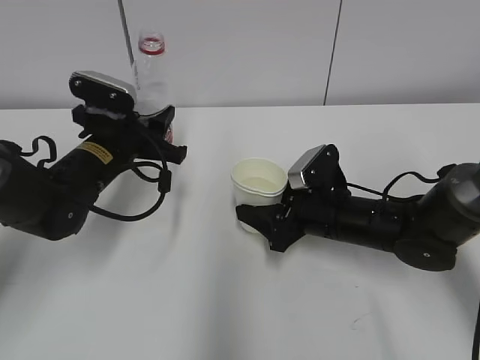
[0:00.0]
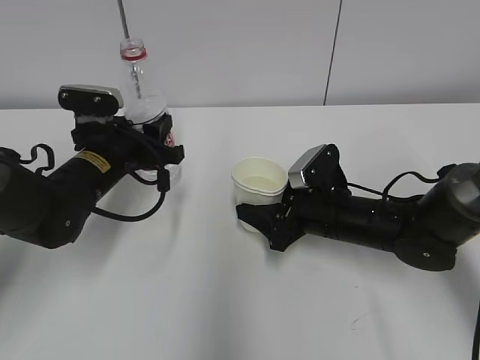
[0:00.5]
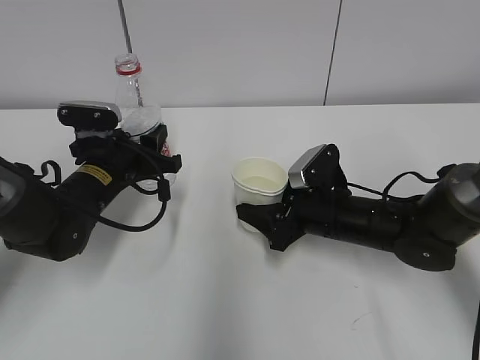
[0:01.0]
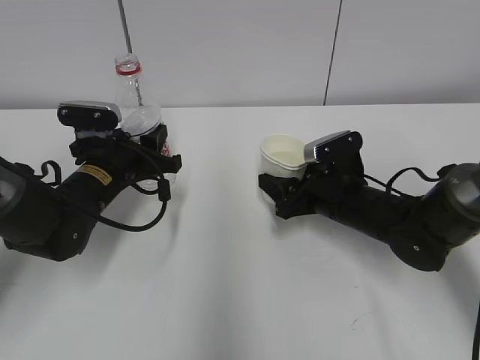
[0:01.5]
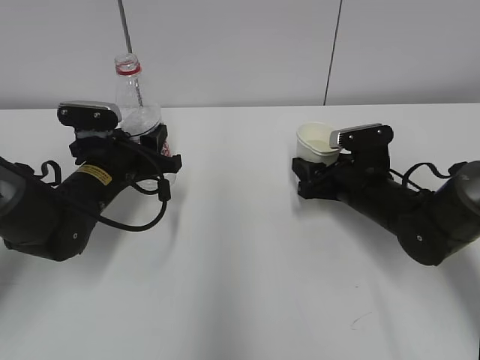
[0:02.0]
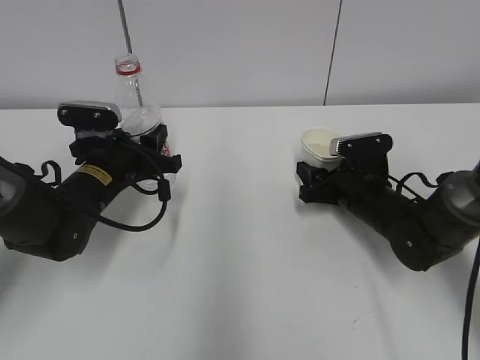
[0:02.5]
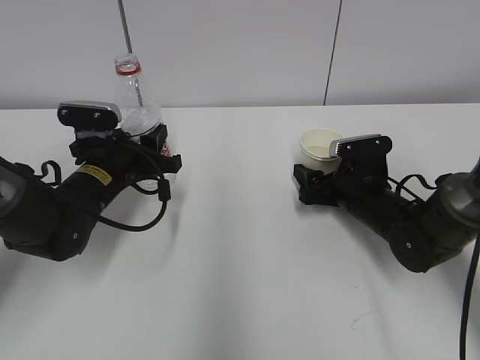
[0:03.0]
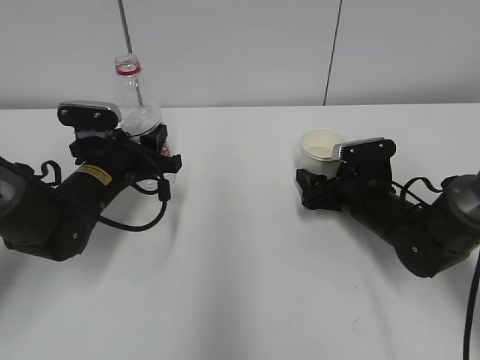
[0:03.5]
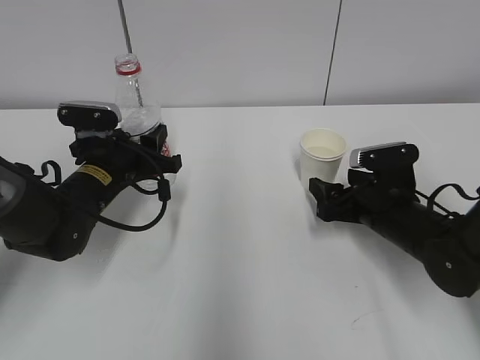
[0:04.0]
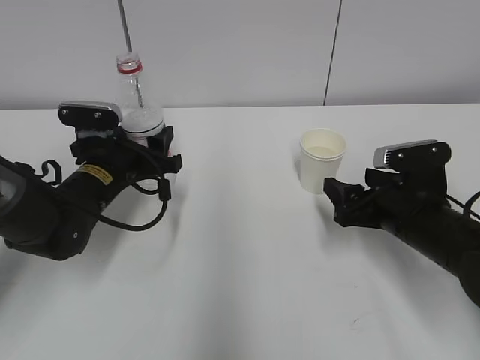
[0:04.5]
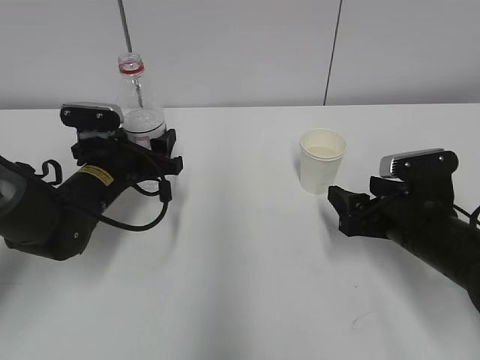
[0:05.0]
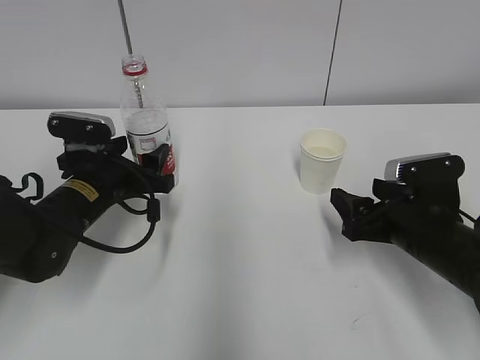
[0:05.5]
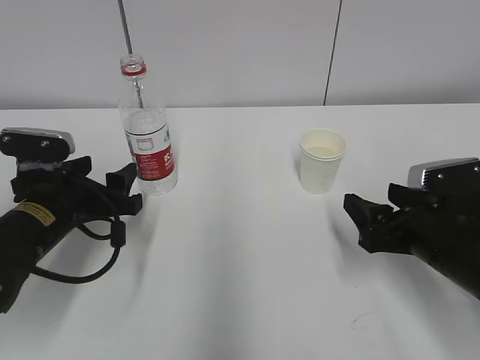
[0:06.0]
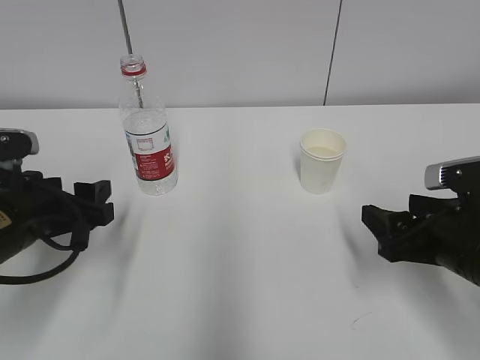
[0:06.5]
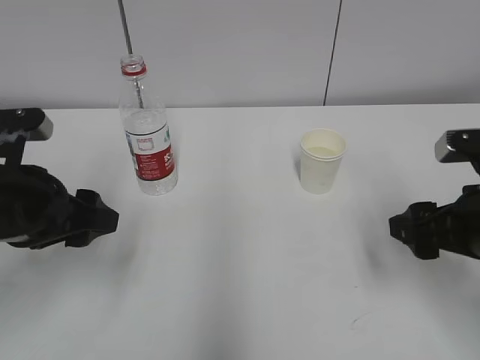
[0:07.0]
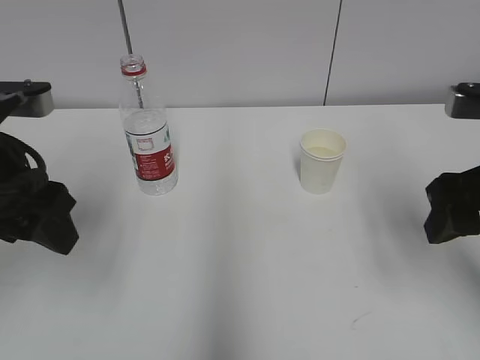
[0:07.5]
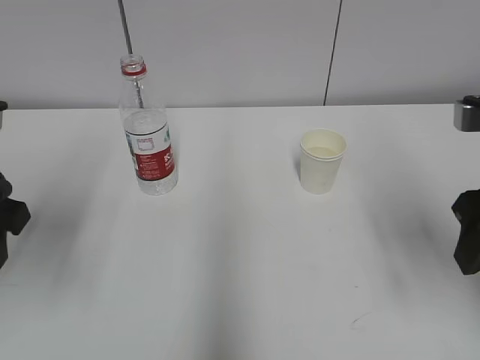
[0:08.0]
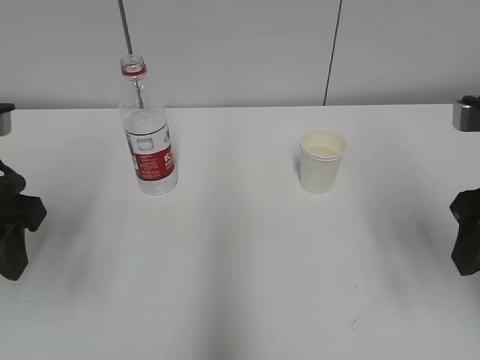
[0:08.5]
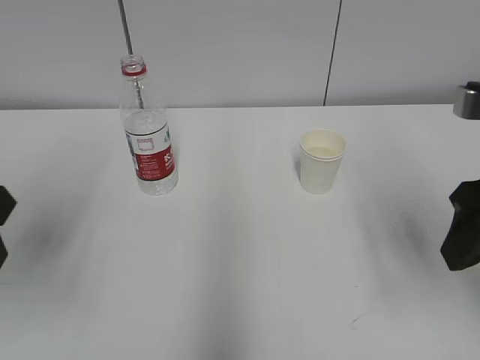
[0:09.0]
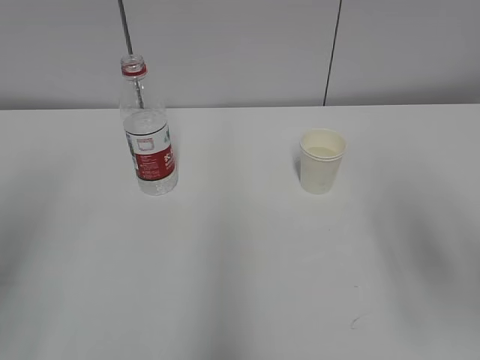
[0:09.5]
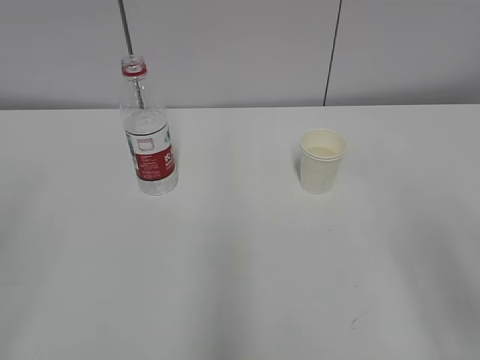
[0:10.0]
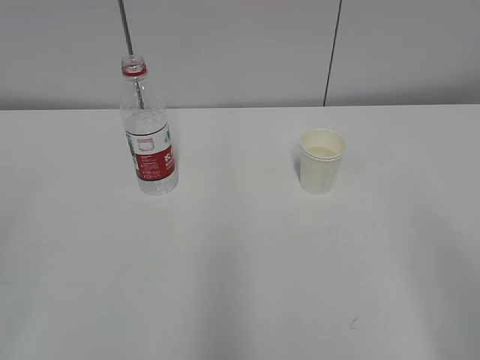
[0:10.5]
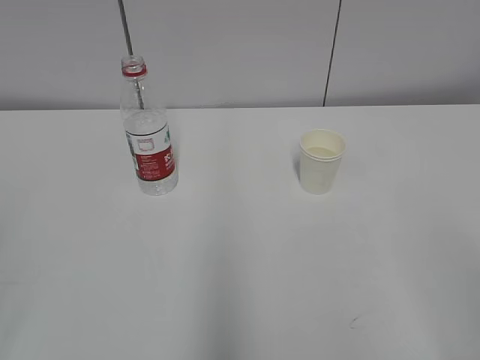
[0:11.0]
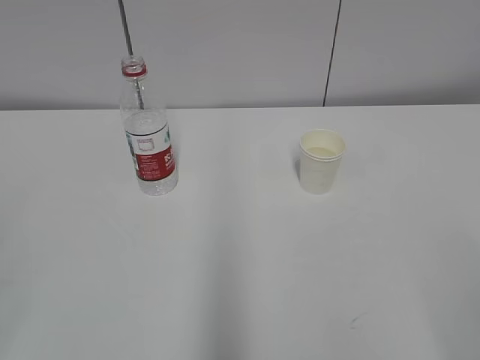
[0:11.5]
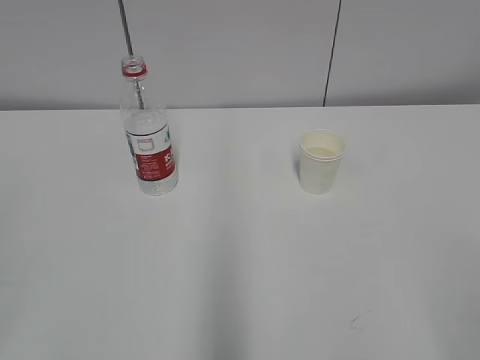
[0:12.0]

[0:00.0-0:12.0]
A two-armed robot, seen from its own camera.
Step, 0:00.0 to 0:01.0: Place the water bottle with the left hand.
0:00.0 to 0:02.0: The right gripper travels to the right by about 5 cm.
0:02.0 to 0:04.0: The right gripper opens.
0:04.0 to 0:06.0: The two grippers go approximately 10 cm backward. The left gripper opens its fingers.
0:06.0 to 0:08.0: The right gripper shifts approximately 15 cm upward; the left gripper goes approximately 15 cm upward and backward.
0:08.0 to 0:10.0: The right gripper is displaced backward by about 10 cm, while the left gripper is displaced backward by approximately 20 cm, and closes its fingers.

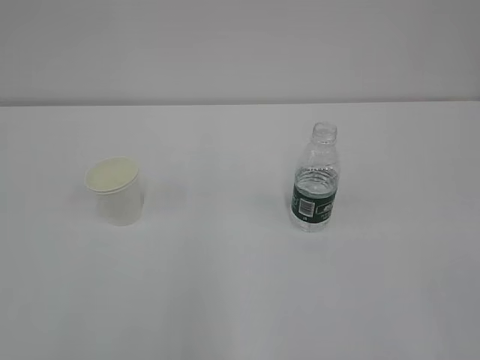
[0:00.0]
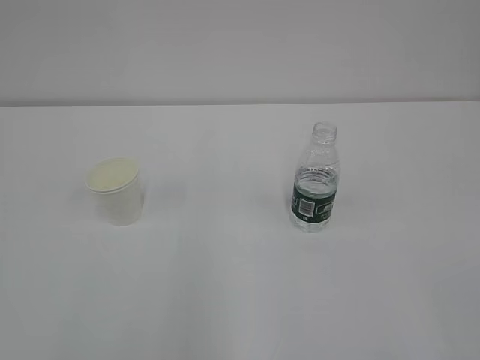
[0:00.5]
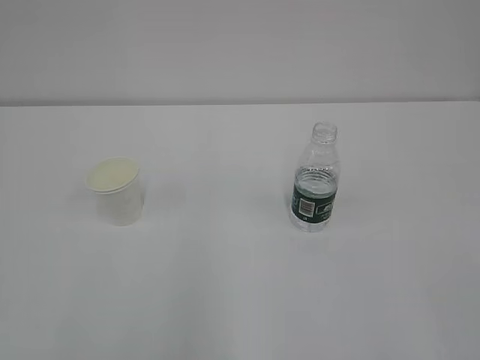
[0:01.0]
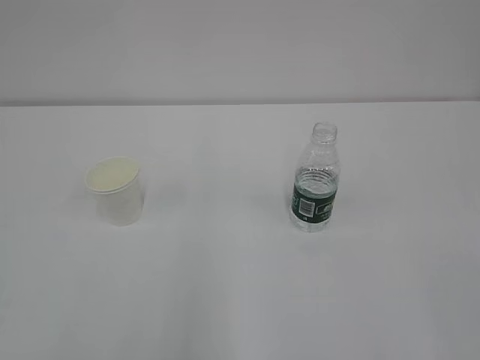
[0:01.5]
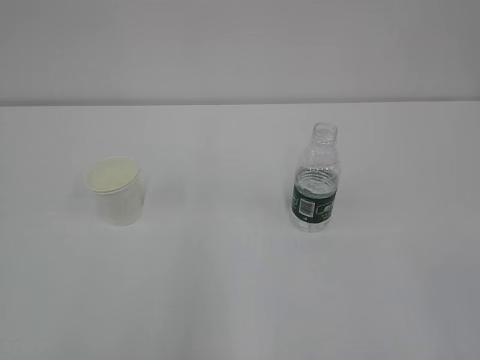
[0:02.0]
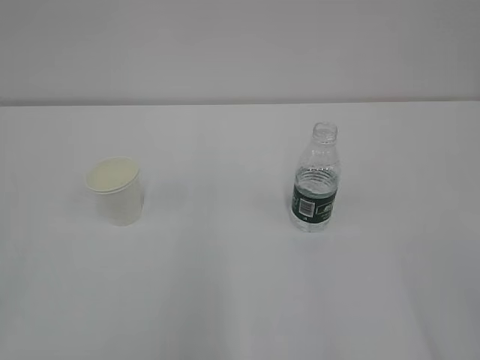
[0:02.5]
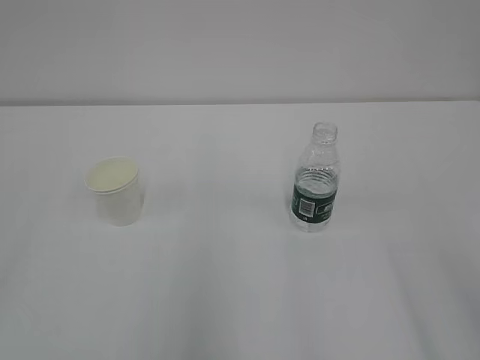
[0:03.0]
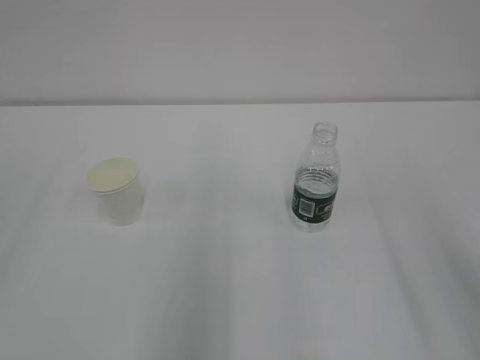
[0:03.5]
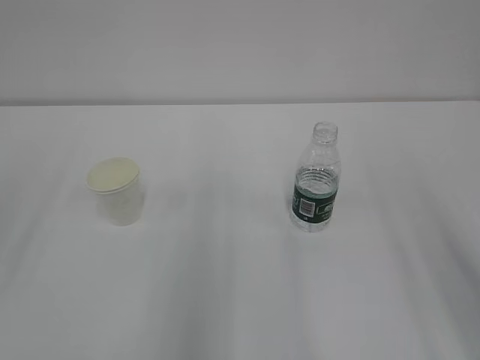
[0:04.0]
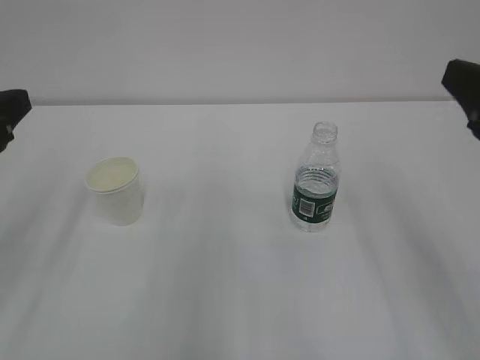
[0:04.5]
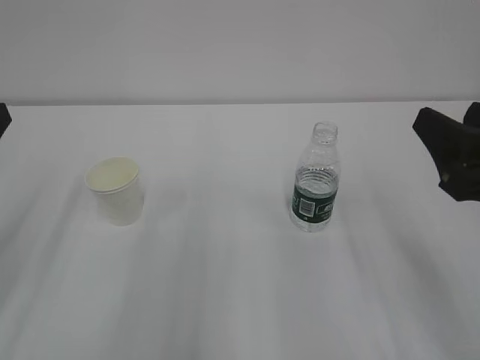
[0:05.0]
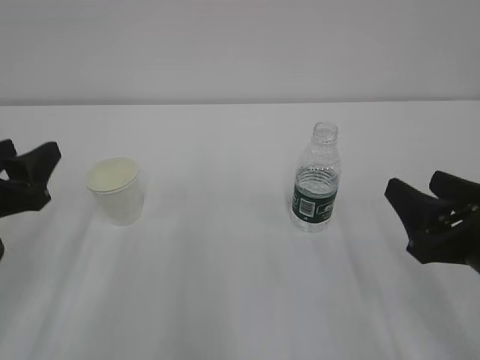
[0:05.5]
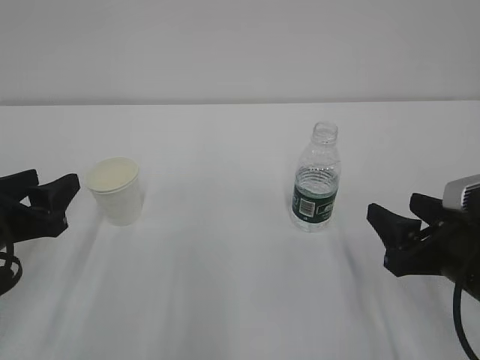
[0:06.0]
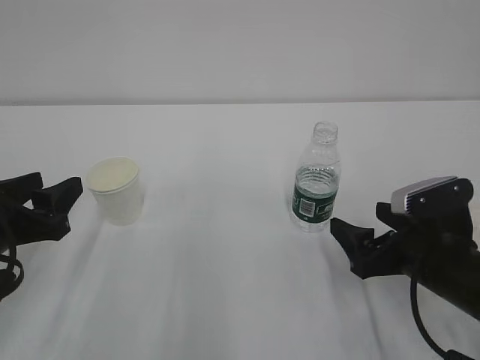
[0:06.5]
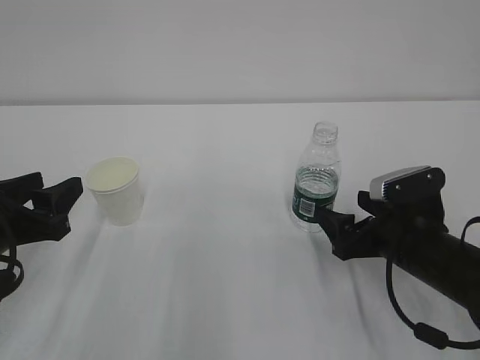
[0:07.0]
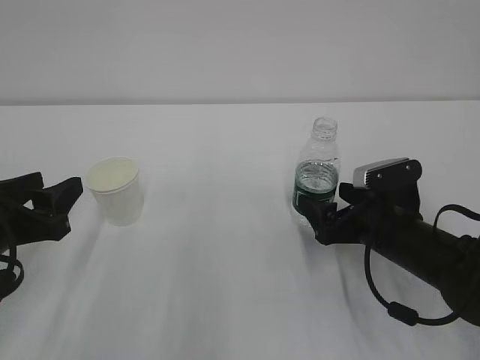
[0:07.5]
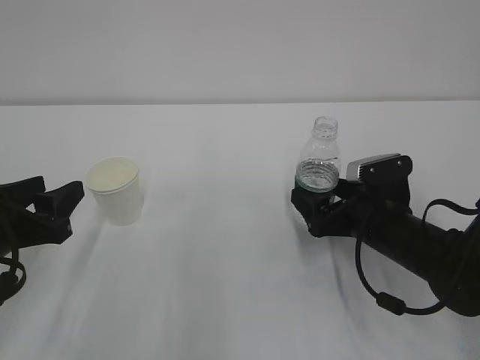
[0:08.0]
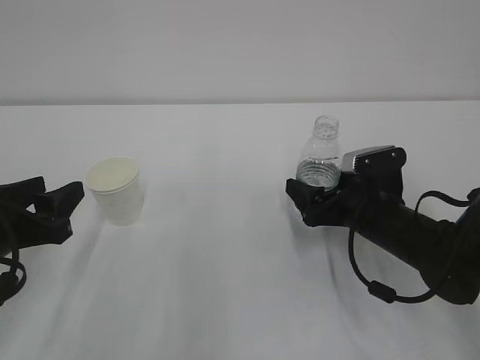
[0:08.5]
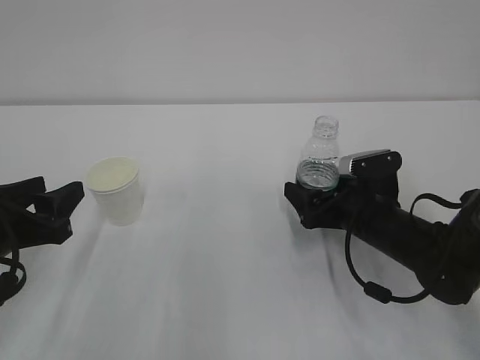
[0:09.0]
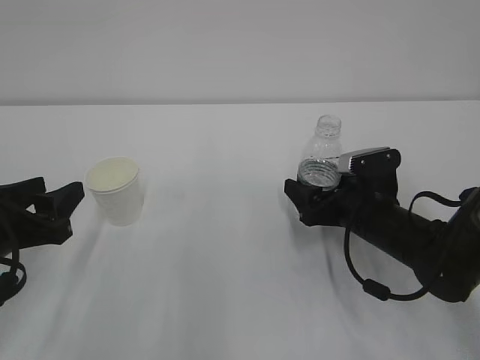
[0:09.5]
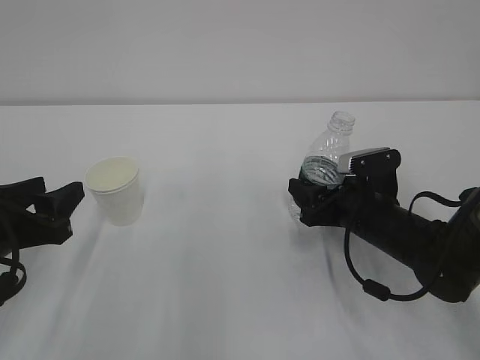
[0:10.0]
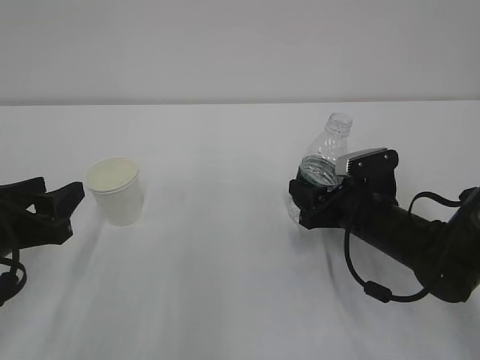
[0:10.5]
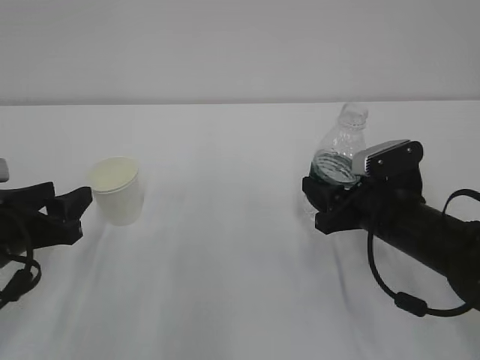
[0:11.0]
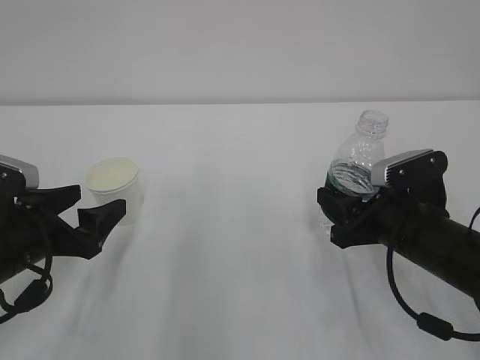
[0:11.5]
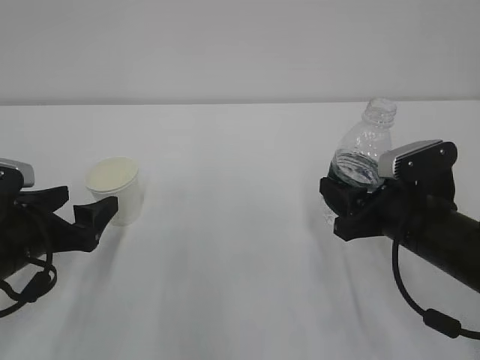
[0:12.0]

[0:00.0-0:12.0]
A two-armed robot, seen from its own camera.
0:04.0 to 0:06.0: The grippers both shift downward by approximately 20 cm.
0:06.0 to 0:08.0: The right gripper travels forward and downward by roughly 10 cm, and opens up.
0:08.0 to 0:10.0: The right gripper closes its fingers.
0:10.0 to 0:12.0: The left gripper opens its fingers; the right gripper shifts about 10 cm backward and upward.

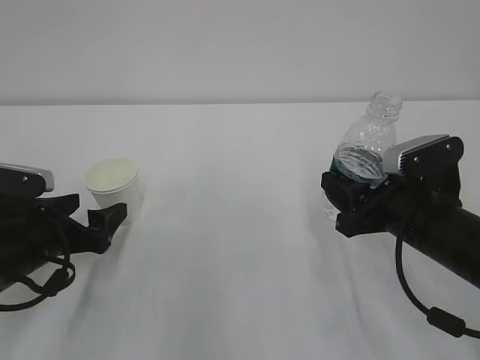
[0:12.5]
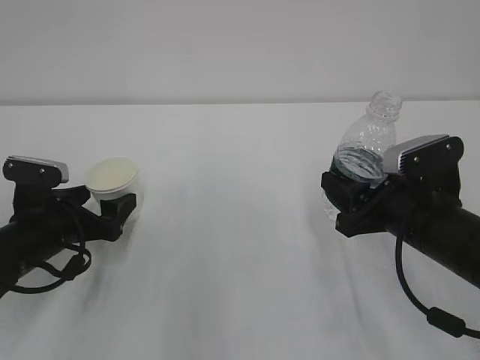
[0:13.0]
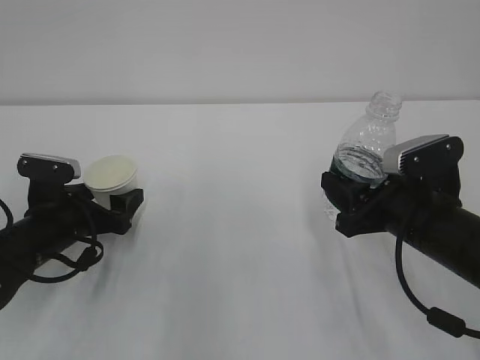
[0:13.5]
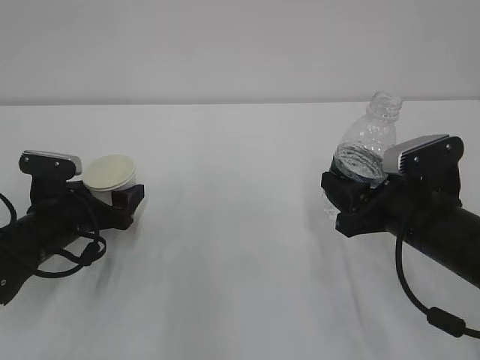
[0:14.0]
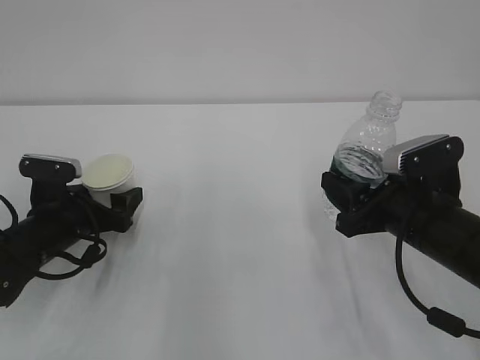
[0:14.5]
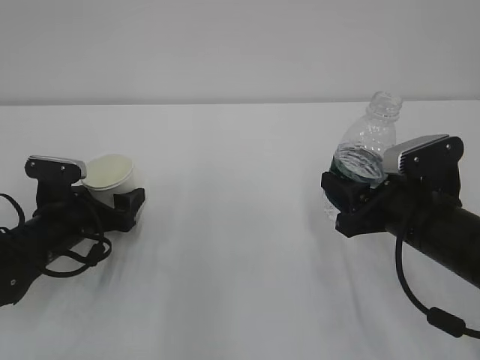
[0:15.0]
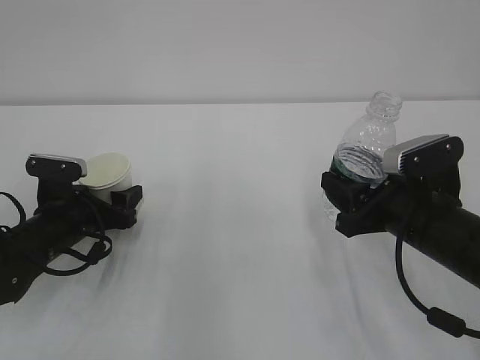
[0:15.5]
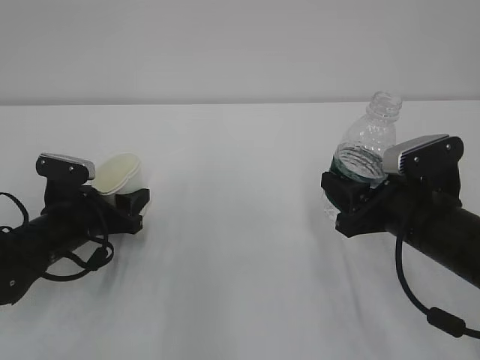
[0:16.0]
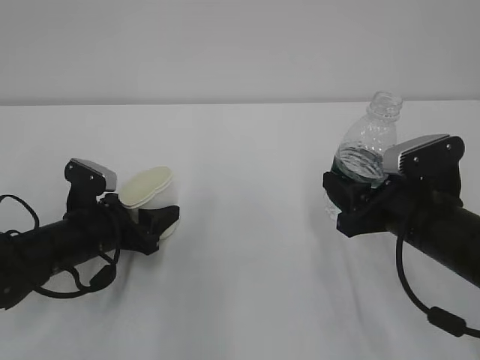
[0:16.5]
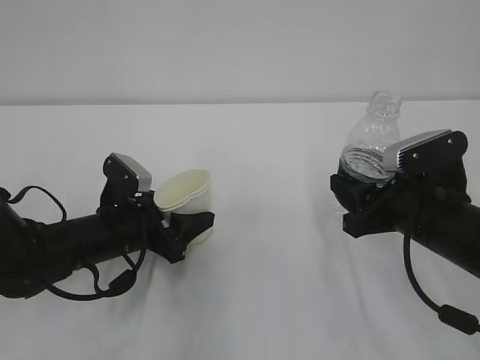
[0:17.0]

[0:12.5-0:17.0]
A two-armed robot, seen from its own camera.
0:12.5 to 0:14.5: The left gripper is displaced forward by approximately 5 cm.
0:14.5 to 0:17.0: The left gripper goes roughly 5 cm to the right, and closes.
